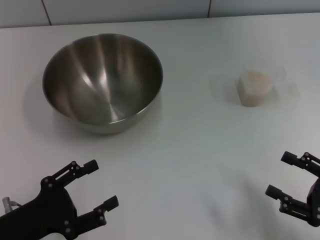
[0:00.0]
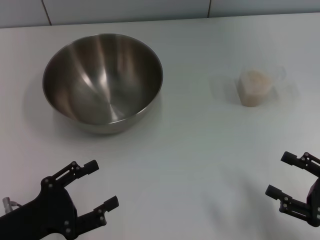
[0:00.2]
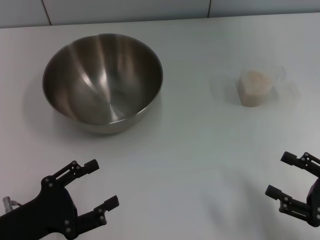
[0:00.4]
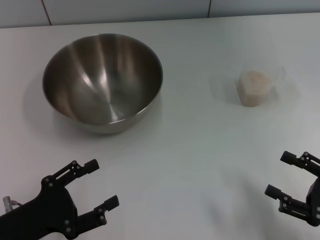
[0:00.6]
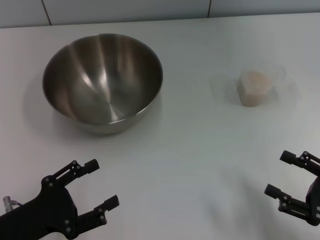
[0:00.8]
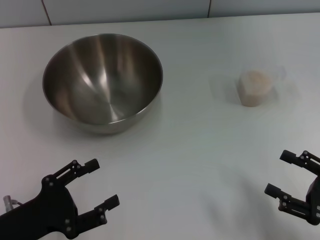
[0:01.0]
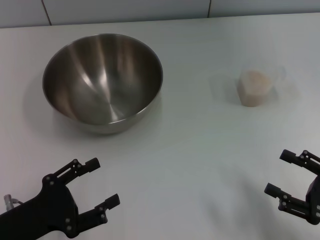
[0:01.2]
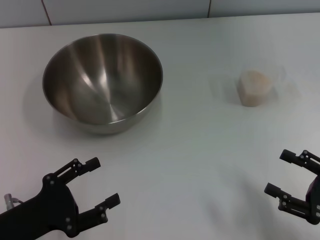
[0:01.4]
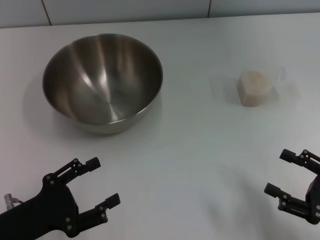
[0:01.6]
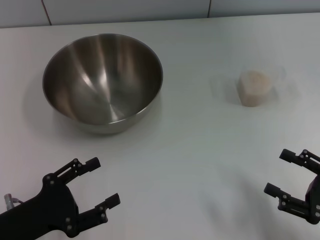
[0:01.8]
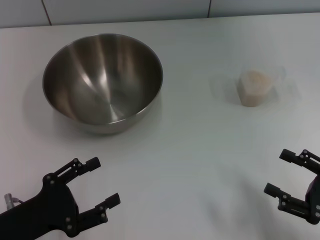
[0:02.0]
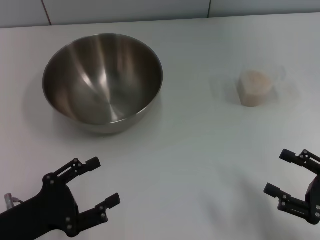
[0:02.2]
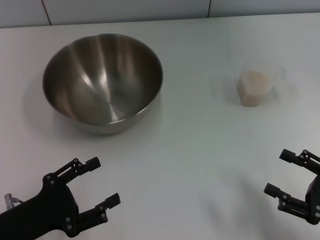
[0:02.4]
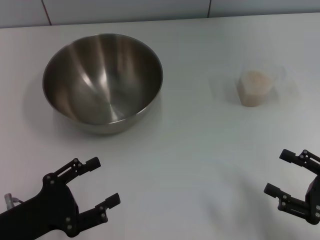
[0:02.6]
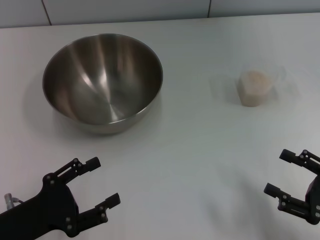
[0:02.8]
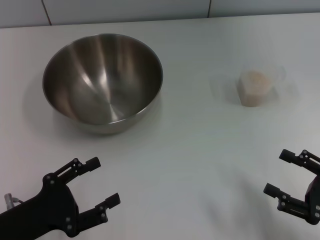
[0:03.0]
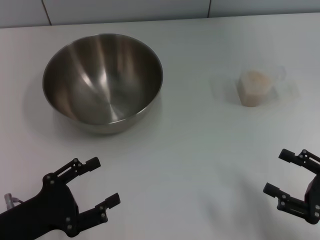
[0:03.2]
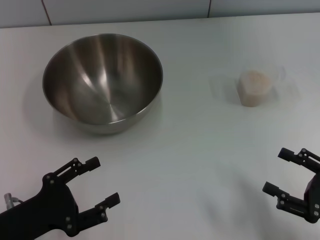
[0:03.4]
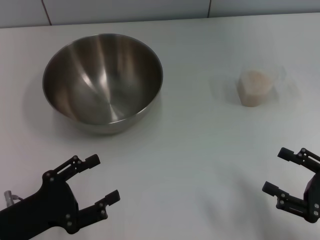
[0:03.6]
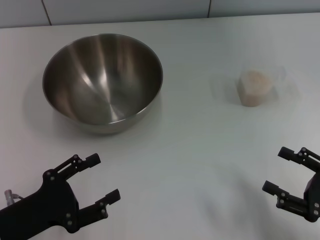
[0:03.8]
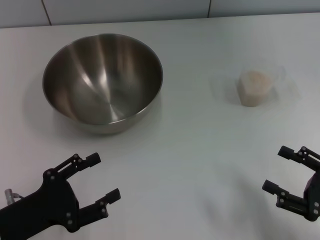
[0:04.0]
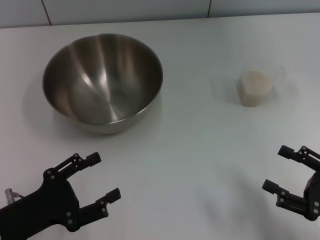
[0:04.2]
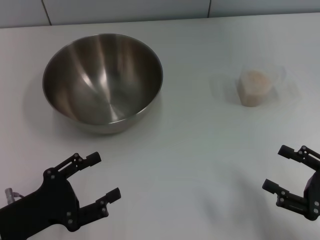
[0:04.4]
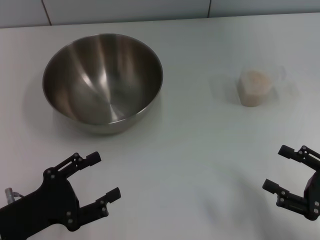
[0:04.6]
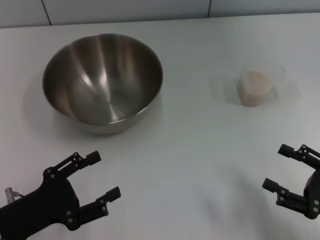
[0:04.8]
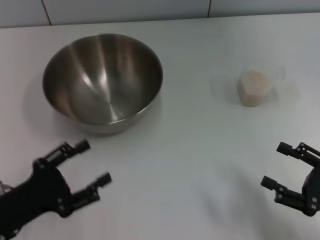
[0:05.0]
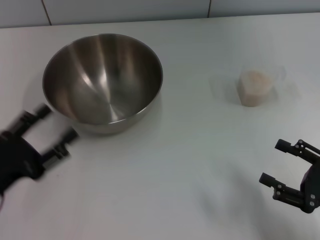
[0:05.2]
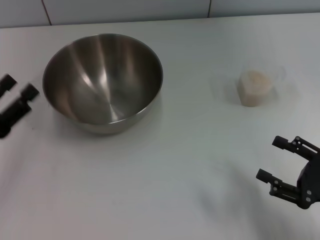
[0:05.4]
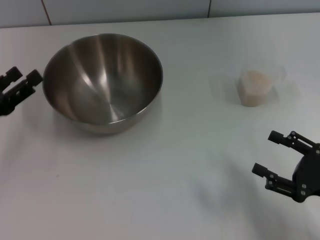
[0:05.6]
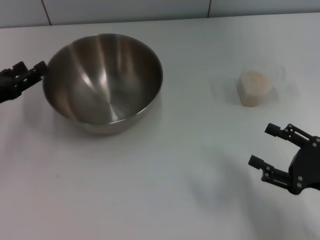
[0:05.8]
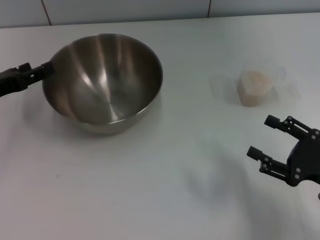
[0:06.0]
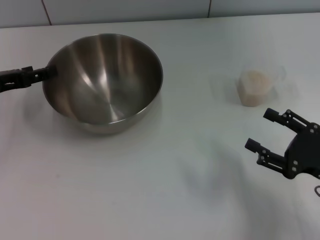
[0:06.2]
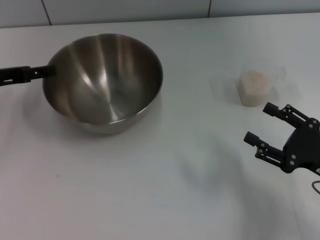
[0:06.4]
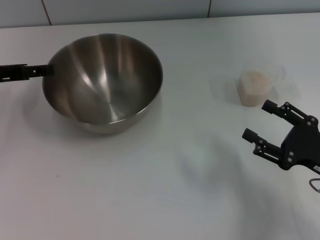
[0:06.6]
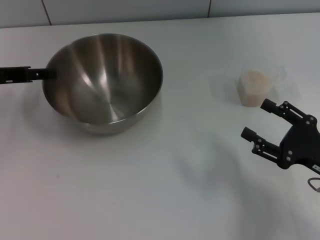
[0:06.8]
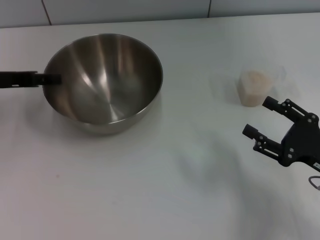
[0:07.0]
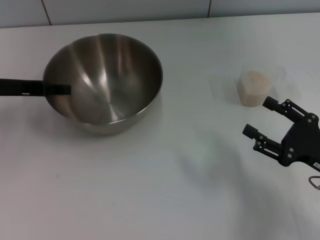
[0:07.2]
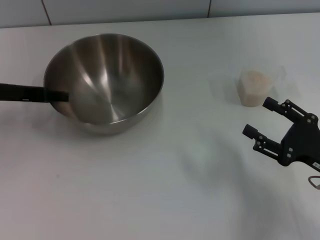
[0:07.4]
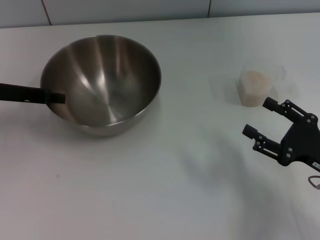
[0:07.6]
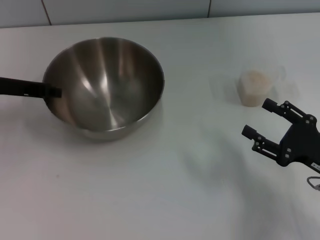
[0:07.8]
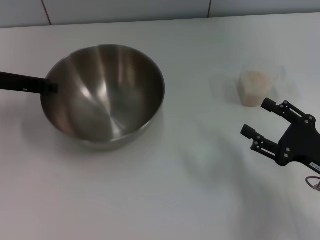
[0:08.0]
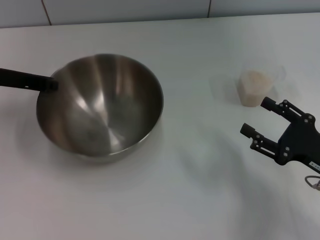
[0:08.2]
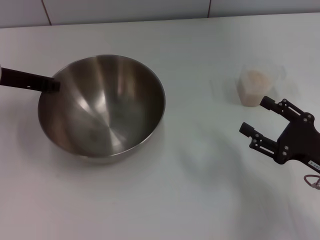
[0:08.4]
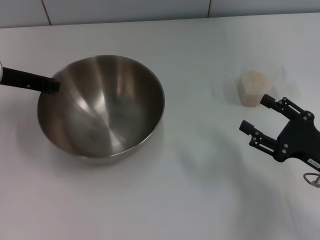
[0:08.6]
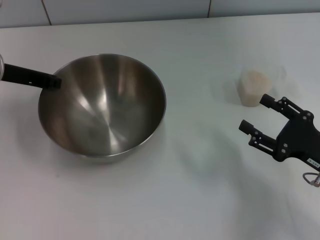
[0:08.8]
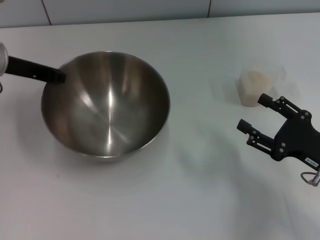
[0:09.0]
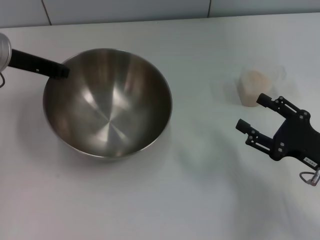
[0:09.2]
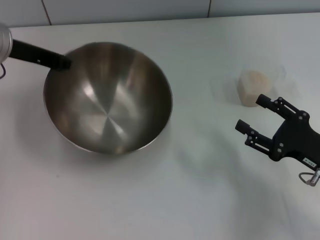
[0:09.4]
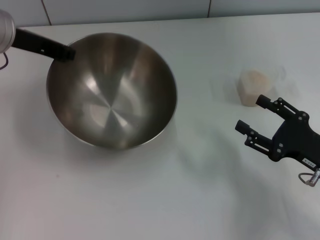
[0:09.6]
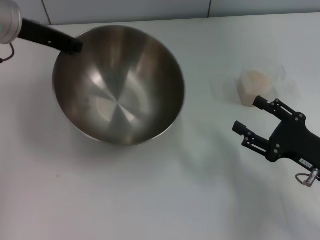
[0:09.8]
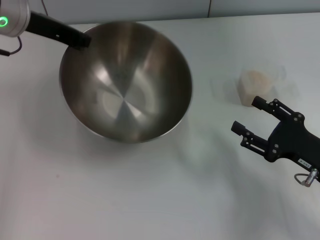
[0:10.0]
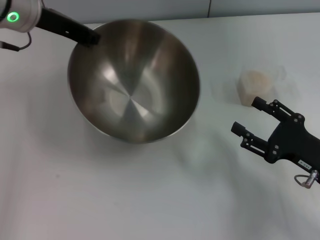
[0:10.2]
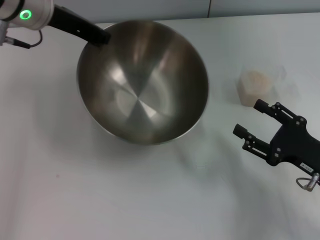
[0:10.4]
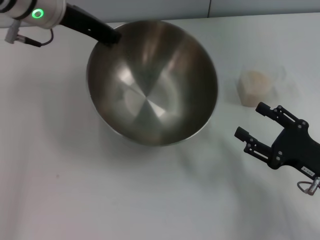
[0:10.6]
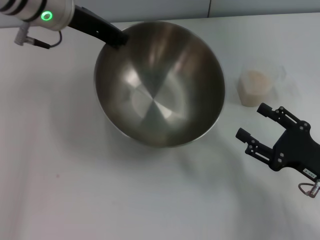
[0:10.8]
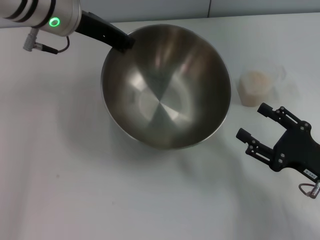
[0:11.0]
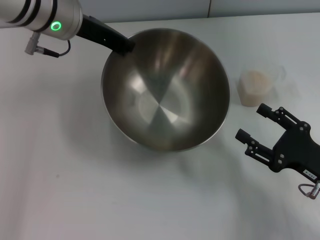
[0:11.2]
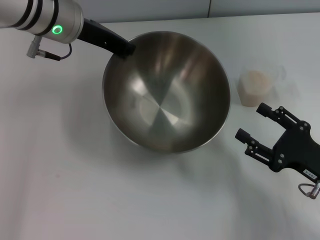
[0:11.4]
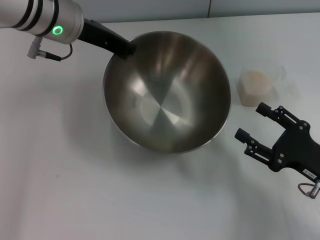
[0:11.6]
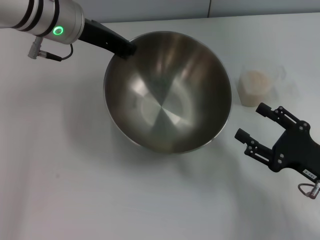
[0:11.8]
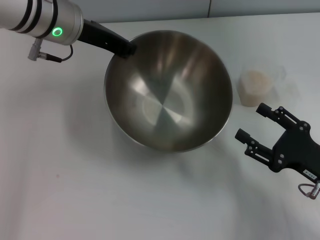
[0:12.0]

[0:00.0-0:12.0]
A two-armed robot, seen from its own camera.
Task of the whole recording: Place the bowl in the middle of the table with one hand and pour the rice from the grain cup into it with the other hand.
Step, 0:00.0 to 0:09.8: Pick up the bowl with the left gripper.
0:00.0 to 0:04.4: Both grippers stay about where they are.
0:04.4 to 0:06.0: The left gripper is displaced forward and upward by approximately 15 cm.
0:06.0 to 0:07.6: The left gripper moves approximately 5 cm.
0:07.6 to 0:09.0: The left gripper shifts by approximately 5 cm, and closes its fingers.
0:09.0 to 0:10.4: The left gripper goes some 10 cm to the right and upward.

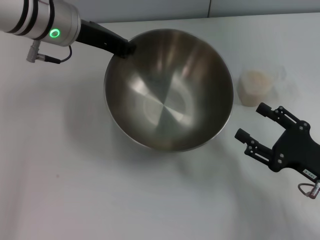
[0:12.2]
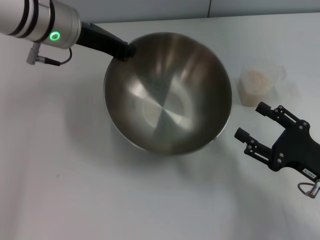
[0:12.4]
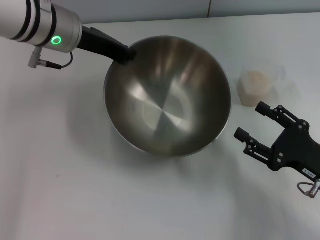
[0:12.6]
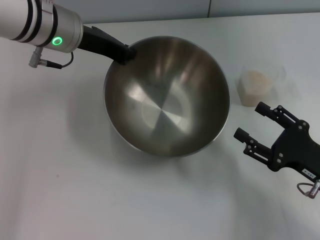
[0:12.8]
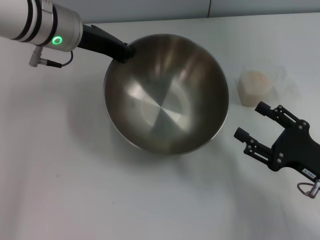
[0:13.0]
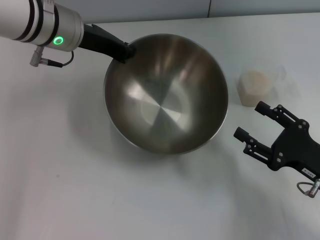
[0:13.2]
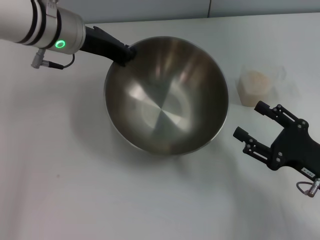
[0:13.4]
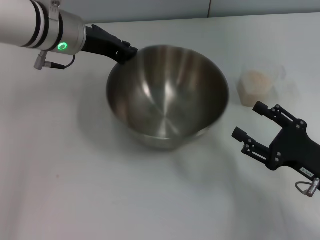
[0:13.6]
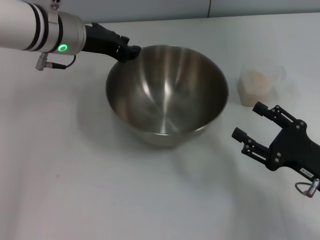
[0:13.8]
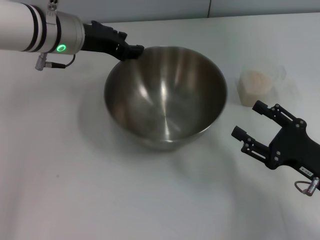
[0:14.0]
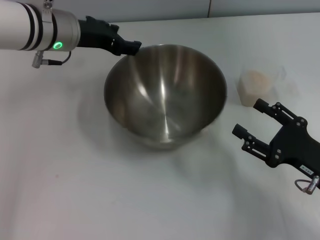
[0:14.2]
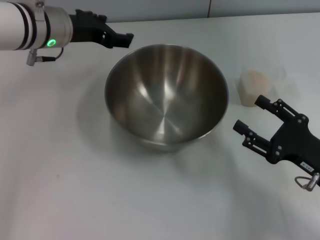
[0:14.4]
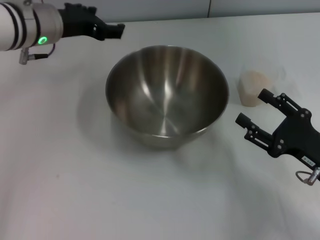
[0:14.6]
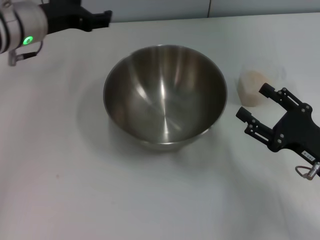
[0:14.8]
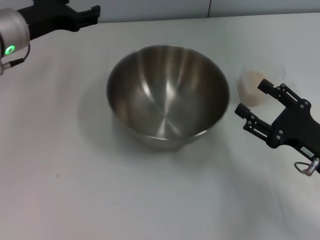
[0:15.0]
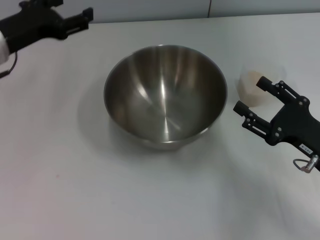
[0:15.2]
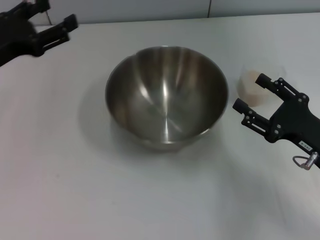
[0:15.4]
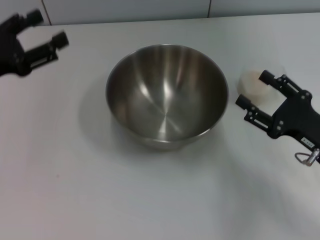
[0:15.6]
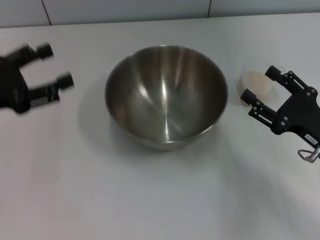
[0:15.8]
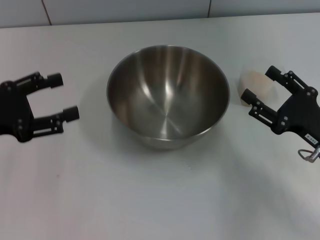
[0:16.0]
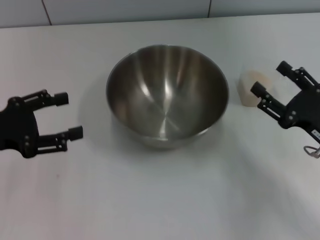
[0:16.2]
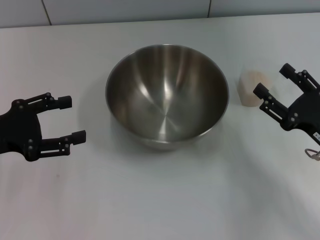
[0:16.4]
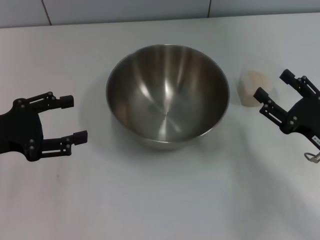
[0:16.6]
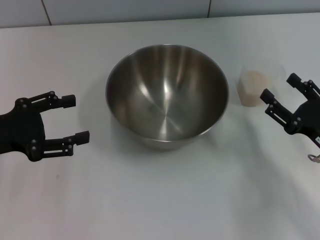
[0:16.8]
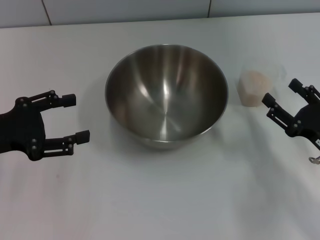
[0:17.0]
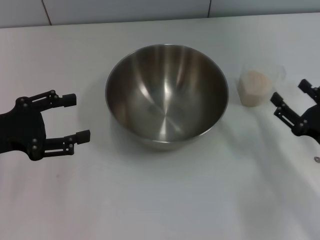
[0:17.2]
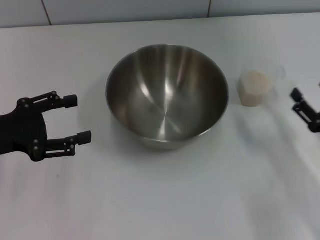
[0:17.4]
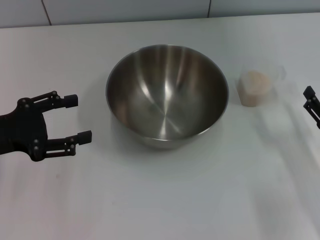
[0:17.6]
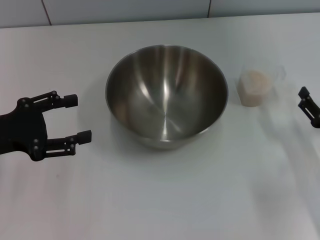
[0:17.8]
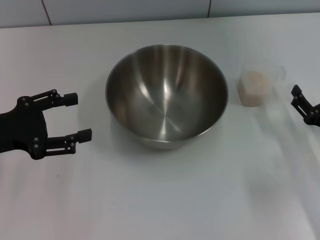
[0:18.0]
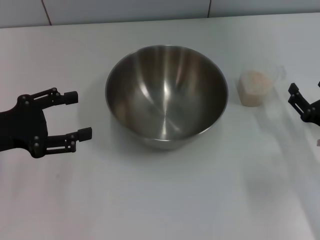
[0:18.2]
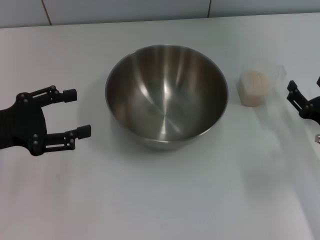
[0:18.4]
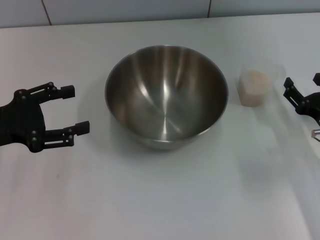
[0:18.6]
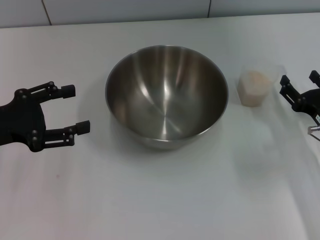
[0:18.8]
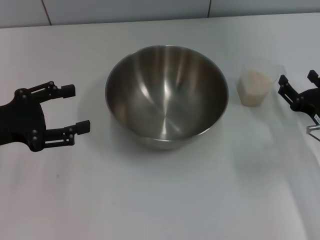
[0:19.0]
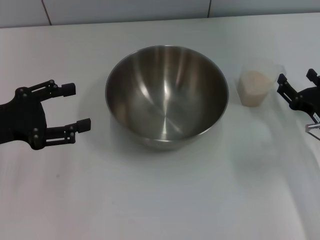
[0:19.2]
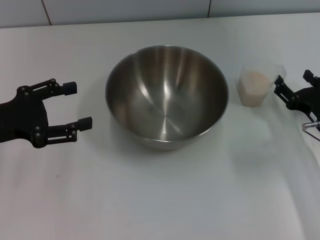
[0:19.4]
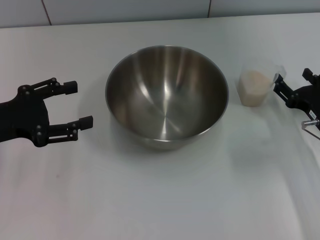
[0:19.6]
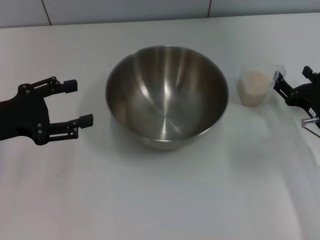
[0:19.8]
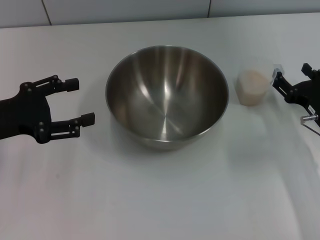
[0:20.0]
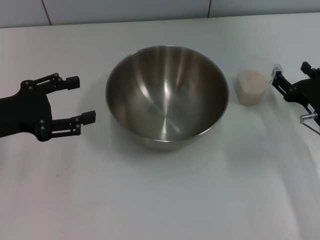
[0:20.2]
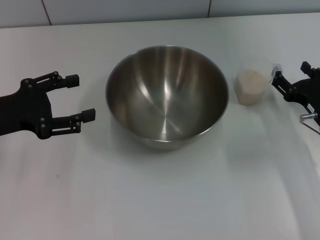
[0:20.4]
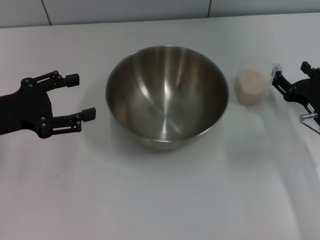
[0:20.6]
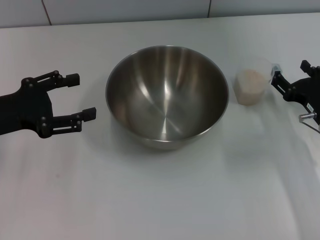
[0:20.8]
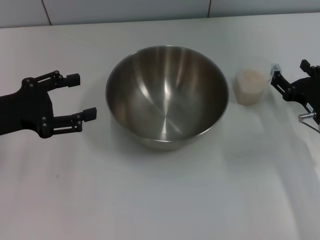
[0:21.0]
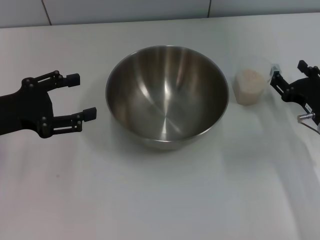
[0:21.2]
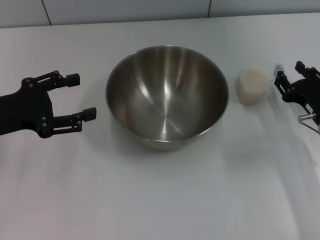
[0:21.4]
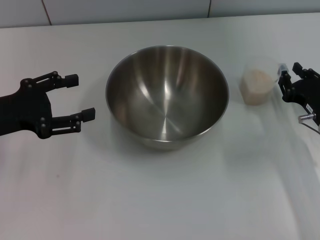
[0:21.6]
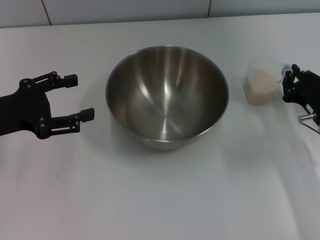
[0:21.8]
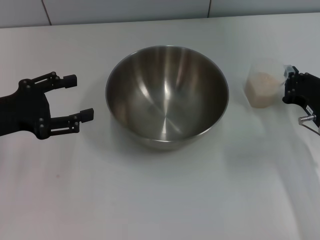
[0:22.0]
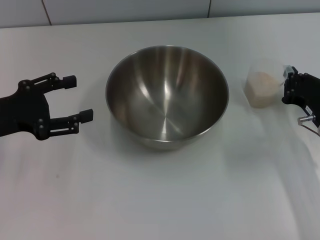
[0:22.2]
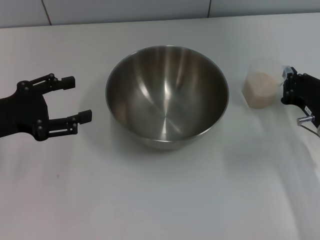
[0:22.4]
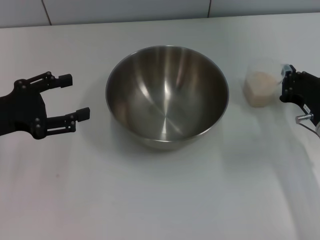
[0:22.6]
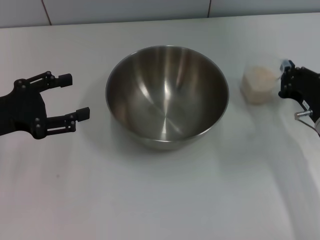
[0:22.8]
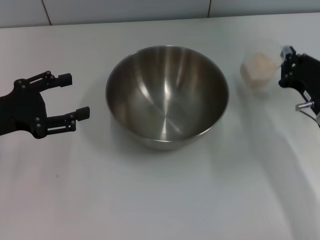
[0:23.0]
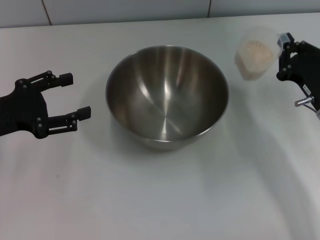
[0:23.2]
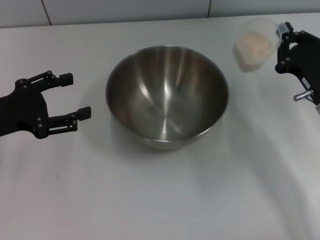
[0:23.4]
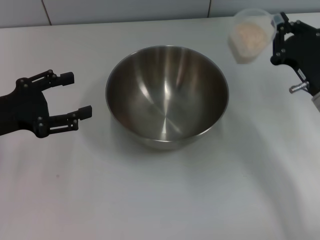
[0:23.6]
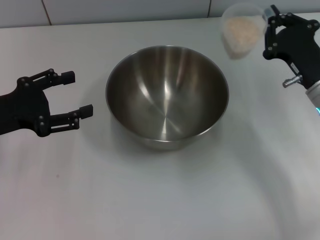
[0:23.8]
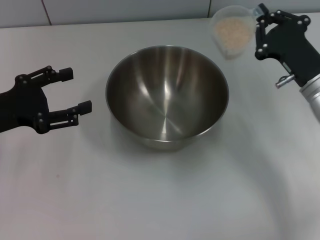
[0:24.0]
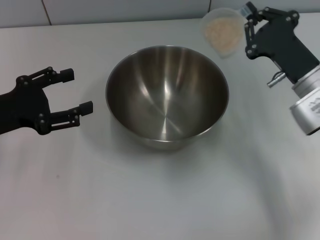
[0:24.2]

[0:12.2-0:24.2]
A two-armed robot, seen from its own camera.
Task of the whole recording: Place the bowl in the middle of the table with one hand and pour the rice from the grain cup into it with the other hand.
Step, 0:12.2 to 0:14.6: Place the bowl in the center of view with the left gripper.
Step, 0:14.8 to 0:23.6: Pick up the cup with rice in it with the right gripper.
0:12.2 to 0:13.8: The grippers stay close to where they were, moving slightly.
0:13.8 to 0:15.2: The left gripper shifts about 10 cm to the left and backward, and opens.
0:15.2 to 0:16.6: The left gripper goes some 10 cm backward and to the left.
0:18.2 to 0:19.8: The grippers stay close to where they were, moving slightly.
0:19.8 to 0:21.2: Both grippers stay put.
0:21.2 to 0:22.6: The right gripper closes.
0:22.6 to 0:24.2: The right gripper moves upward, some 5 cm.
